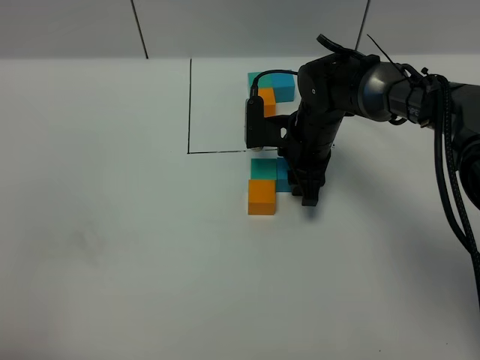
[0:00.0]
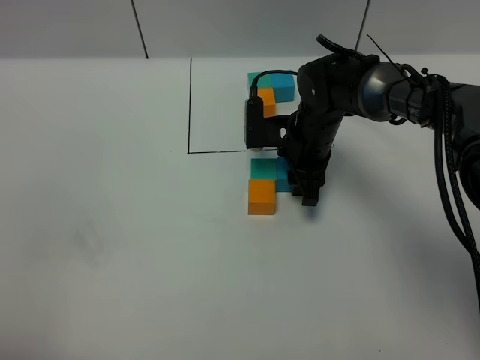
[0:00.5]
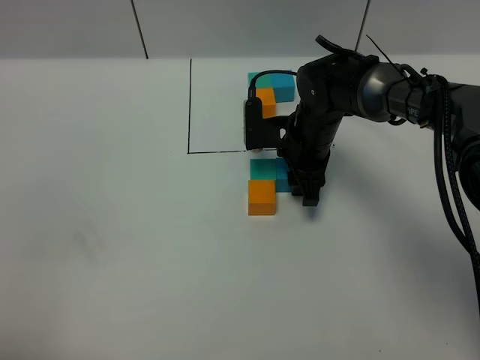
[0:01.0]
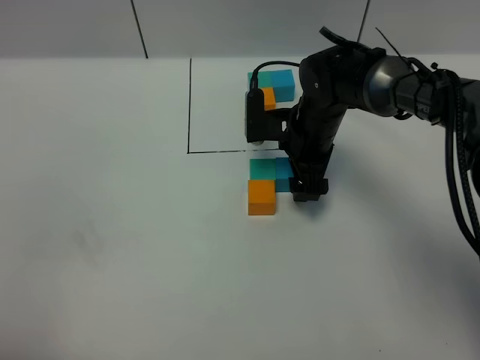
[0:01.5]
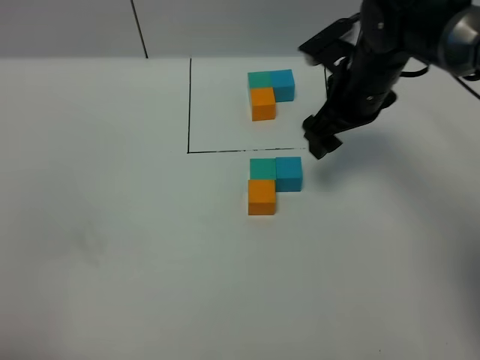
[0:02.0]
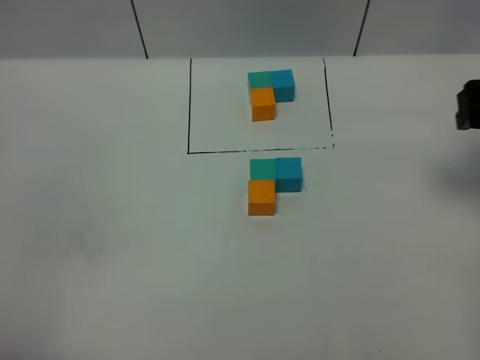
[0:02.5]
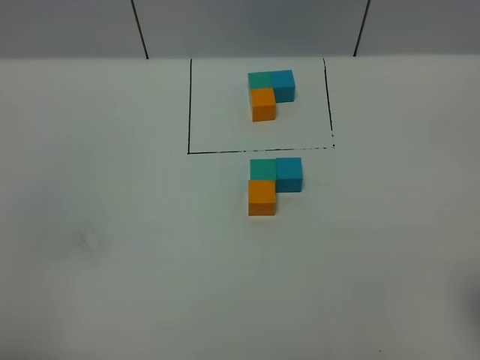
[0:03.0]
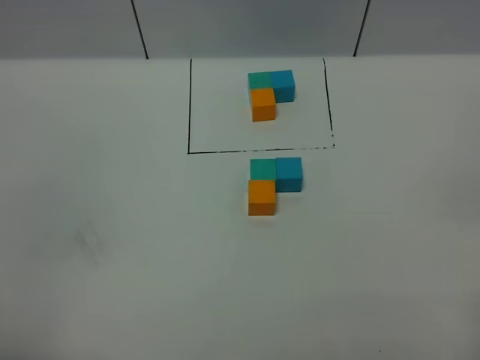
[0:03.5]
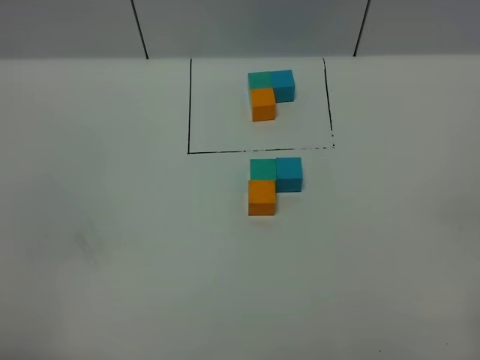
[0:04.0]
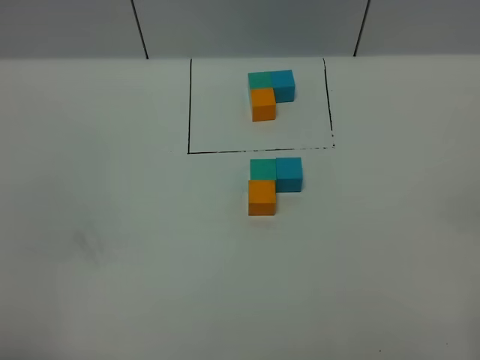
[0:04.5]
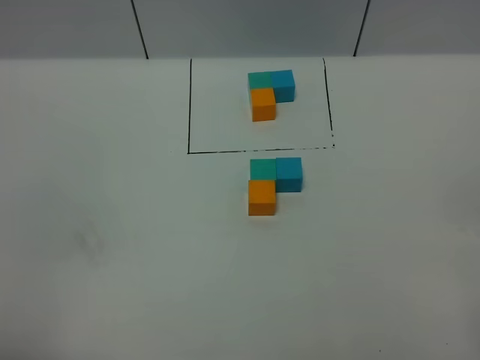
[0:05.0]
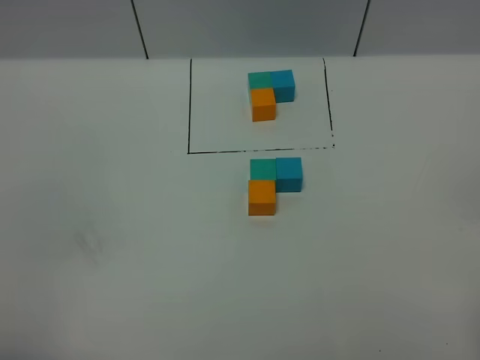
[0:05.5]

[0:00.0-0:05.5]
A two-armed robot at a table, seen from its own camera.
Task of the whole recording: According to the building block template in front, assemble the scattered blocks together.
0:00.0 to 0:02.0: The right gripper moves upward and to the right, some 10 cm, and opens.
0:02.0 to 0:03.5: The right gripper is displaced backward by about 40 cm.

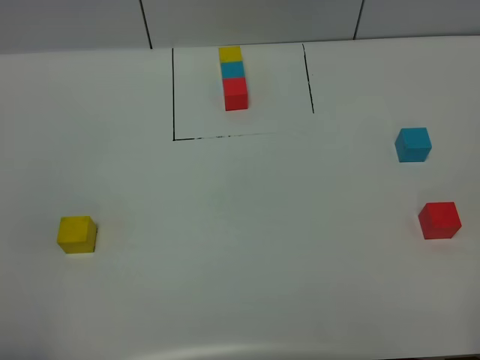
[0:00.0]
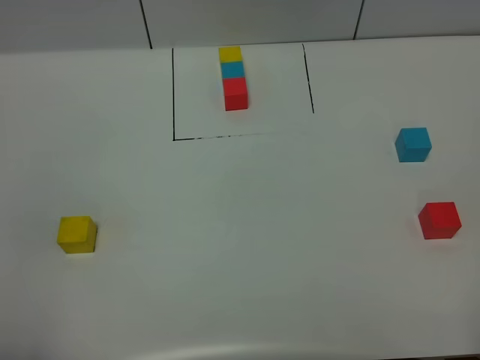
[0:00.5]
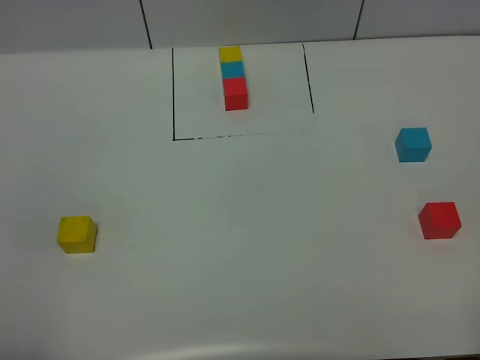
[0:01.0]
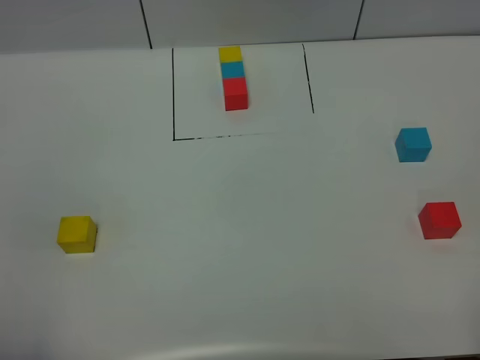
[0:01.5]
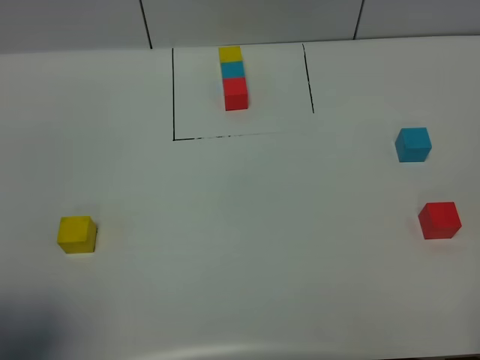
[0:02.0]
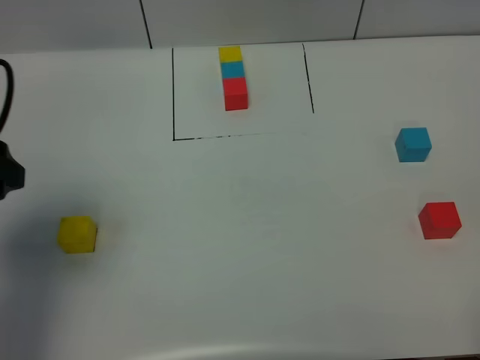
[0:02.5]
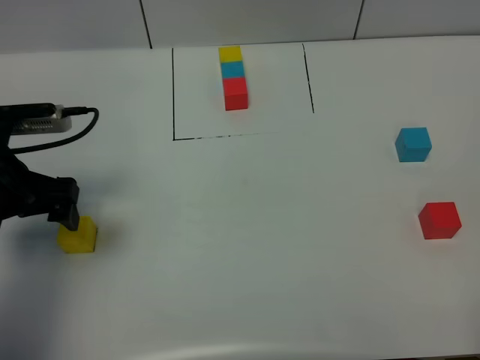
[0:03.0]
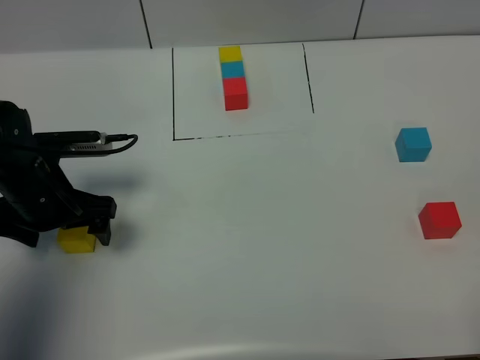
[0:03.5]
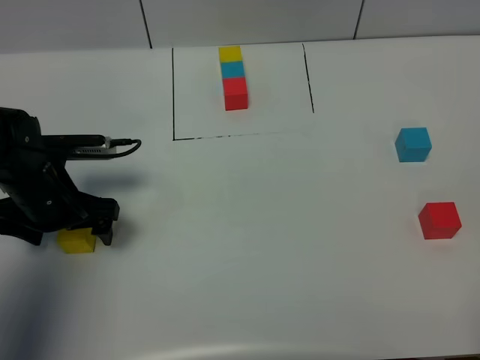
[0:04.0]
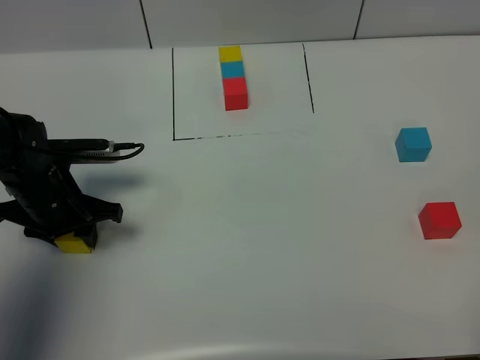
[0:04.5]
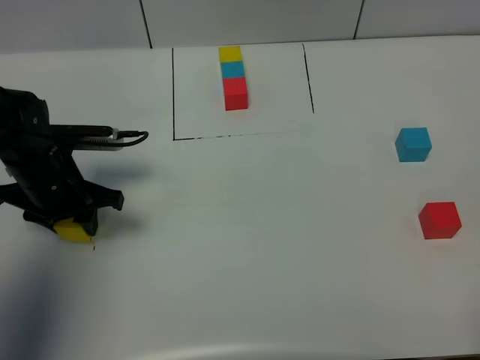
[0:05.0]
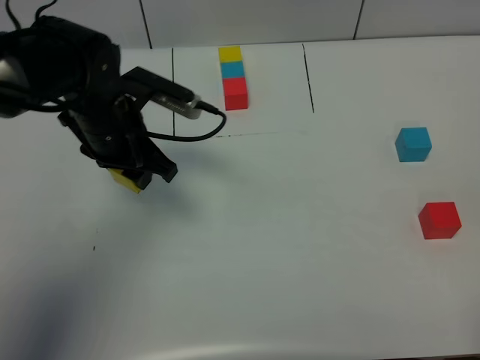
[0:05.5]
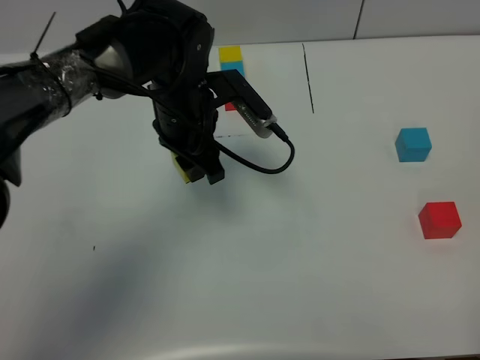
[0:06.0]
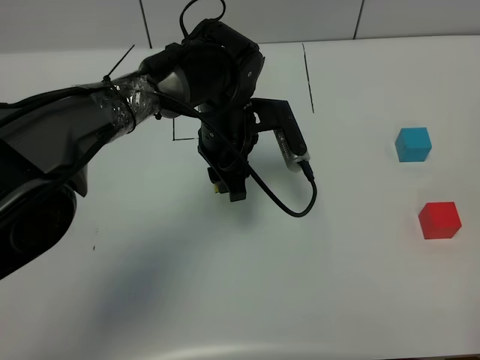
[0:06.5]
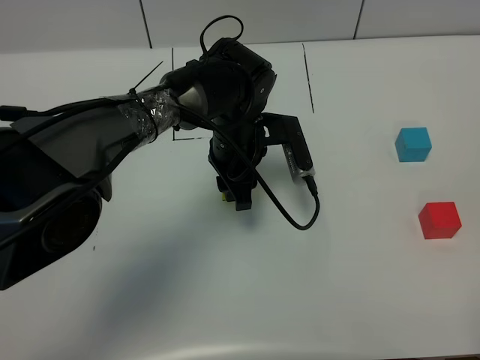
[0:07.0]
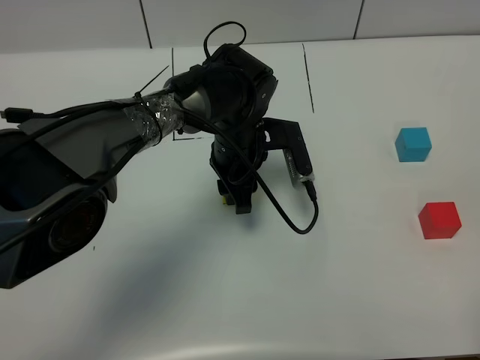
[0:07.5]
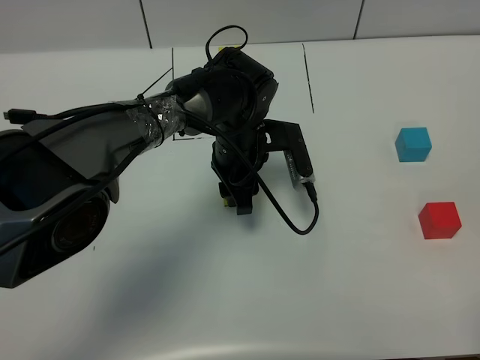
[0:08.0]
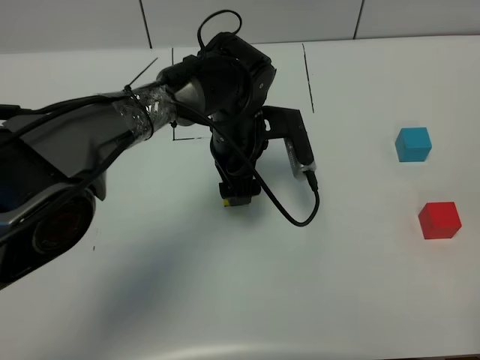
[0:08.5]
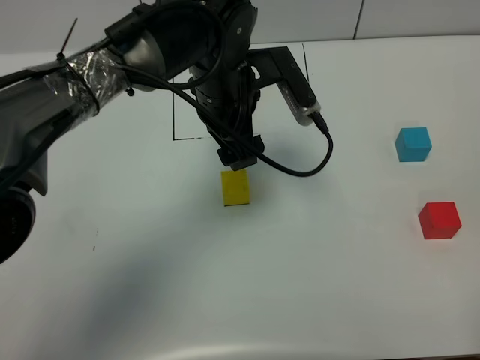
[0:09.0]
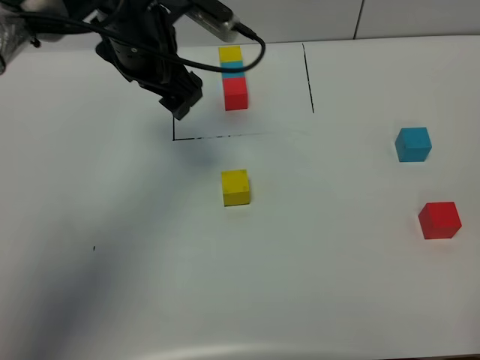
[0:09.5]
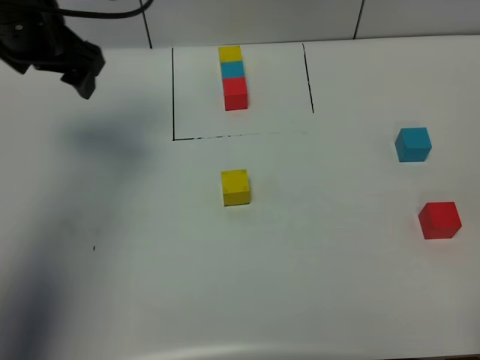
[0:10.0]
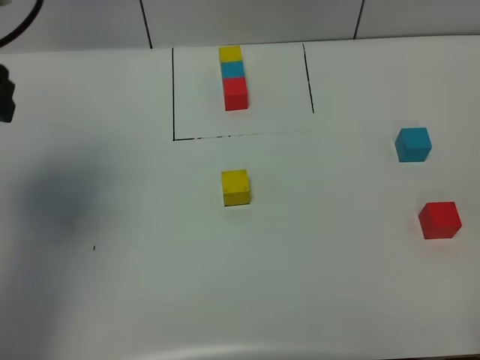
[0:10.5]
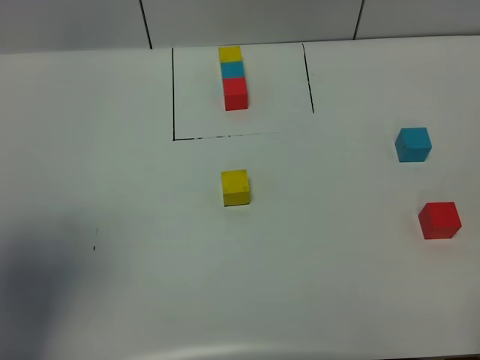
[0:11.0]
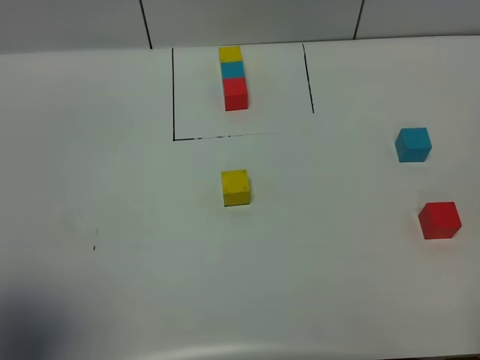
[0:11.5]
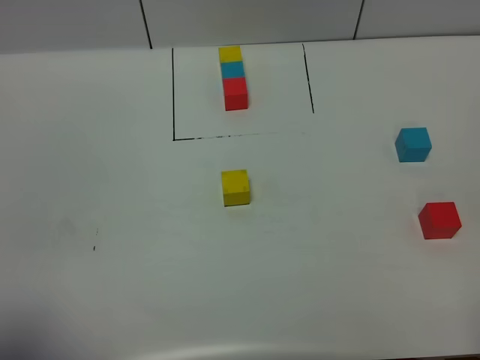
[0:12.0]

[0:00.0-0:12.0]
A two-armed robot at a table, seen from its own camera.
Task of the whole recording: According to the building block template in front, assemble the scattered blocks together.
Step, 0:00.0 to 0:09.0: Put the yellow build block in the center of the table.
0:00.0 to 0:02.0: The left gripper moves forward, approximately 10 cm, and opens.
0:02.0 to 0:04.0: The left gripper is displaced forward and downward by about 30 cm.
0:04.0 to 0:06.0: The left gripper shifts roughly 20 cm to the right, and closes.
0:06.0 to 0:08.0: The left gripper shifts approximately 10 cm downward and to the right.
0:08.0 to 0:10.0: The left gripper is displaced to the left and upward by some 30 cm, and opens.
0:10.0 to 0:12.0: The left gripper is displaced backward by about 35 cm.

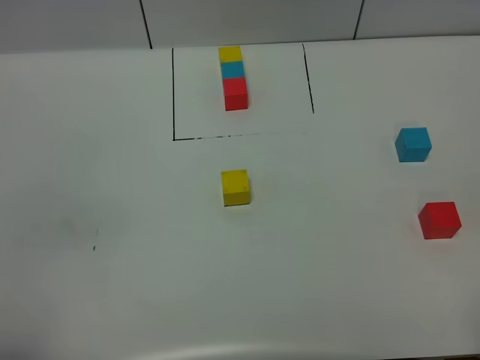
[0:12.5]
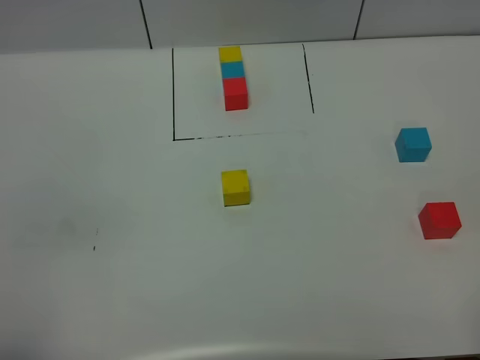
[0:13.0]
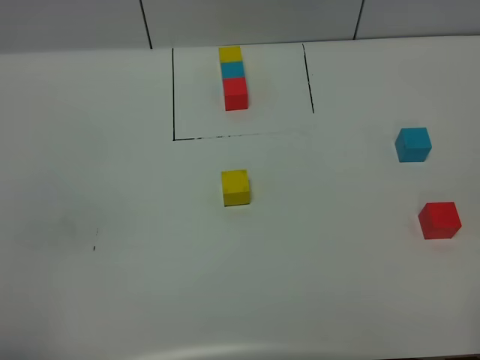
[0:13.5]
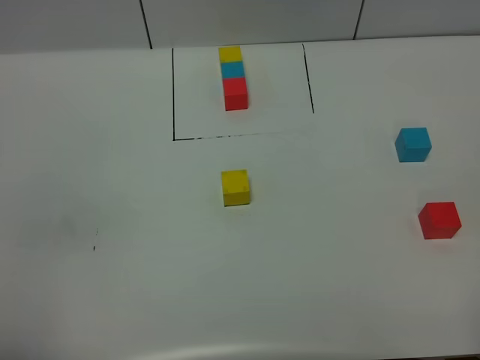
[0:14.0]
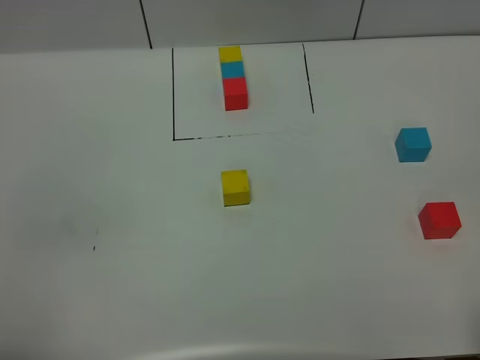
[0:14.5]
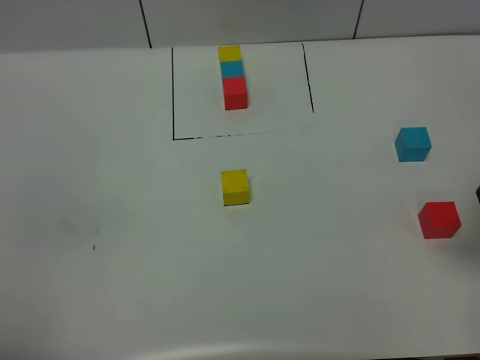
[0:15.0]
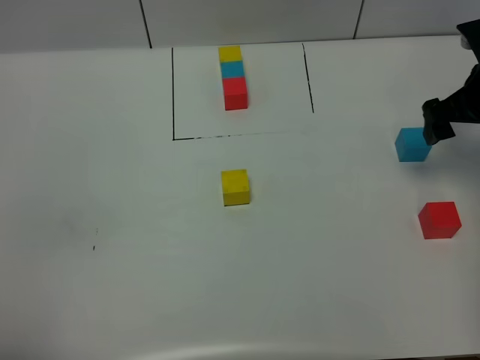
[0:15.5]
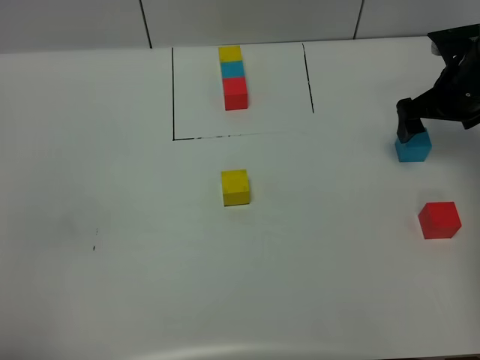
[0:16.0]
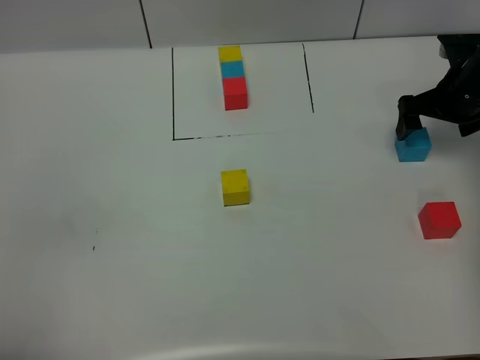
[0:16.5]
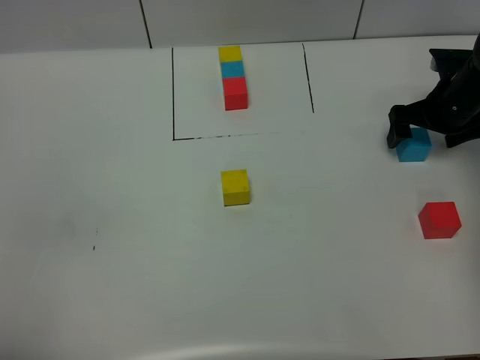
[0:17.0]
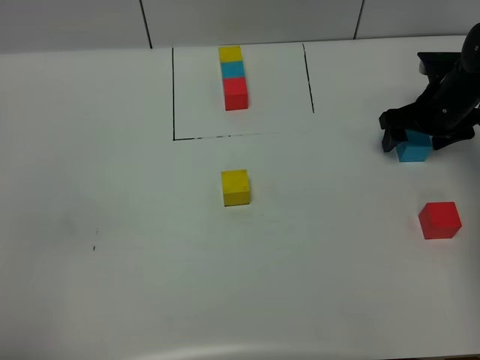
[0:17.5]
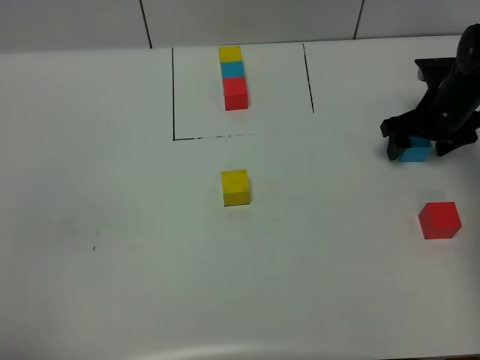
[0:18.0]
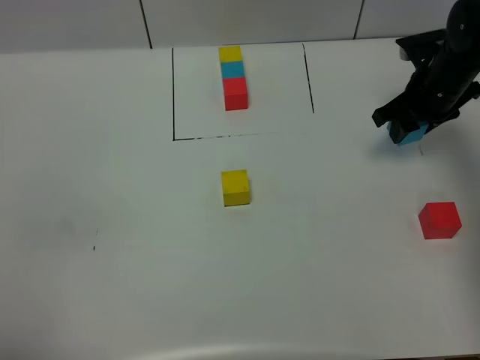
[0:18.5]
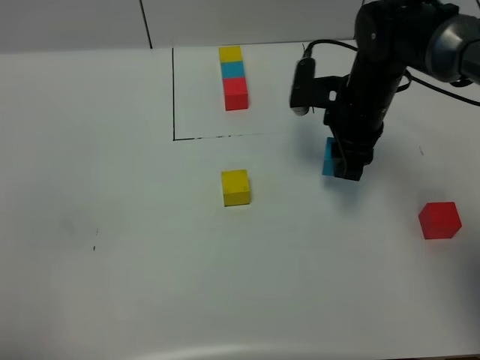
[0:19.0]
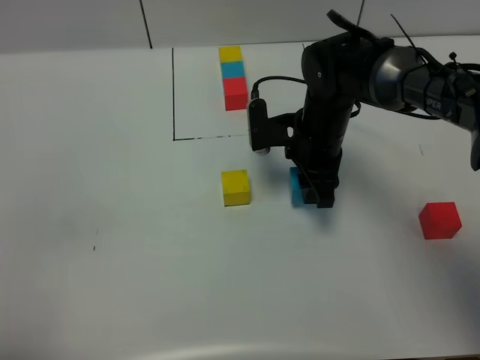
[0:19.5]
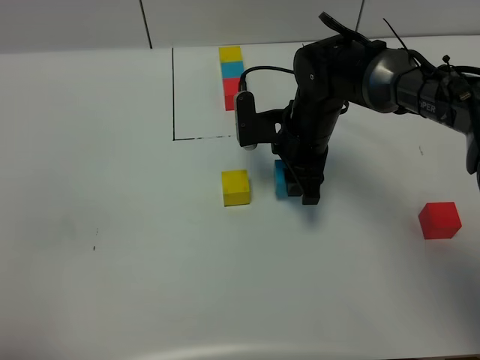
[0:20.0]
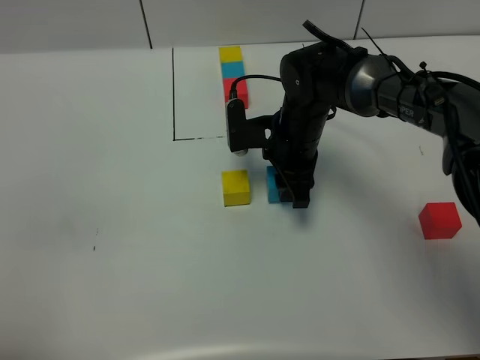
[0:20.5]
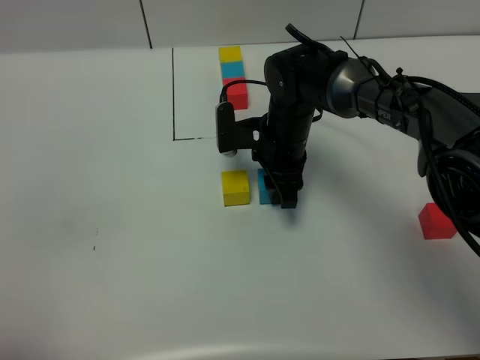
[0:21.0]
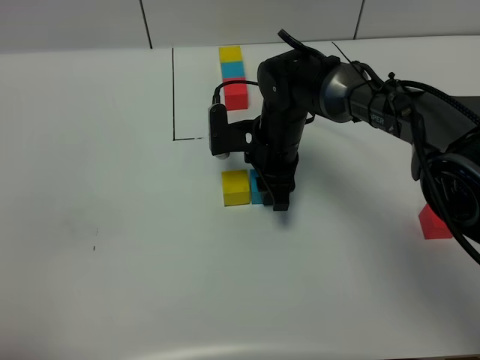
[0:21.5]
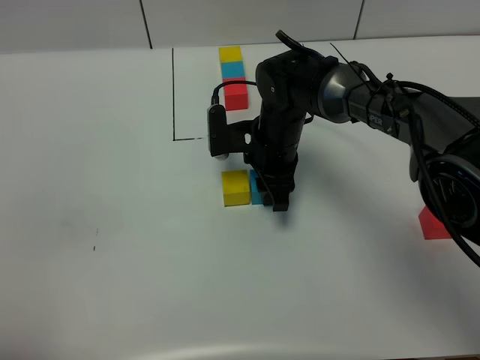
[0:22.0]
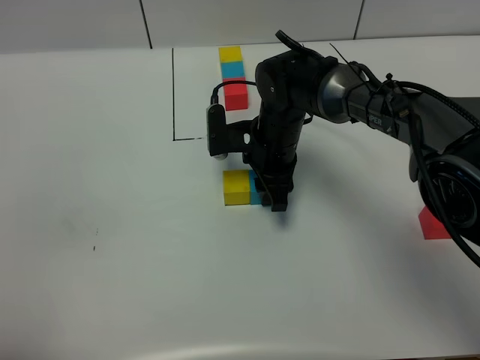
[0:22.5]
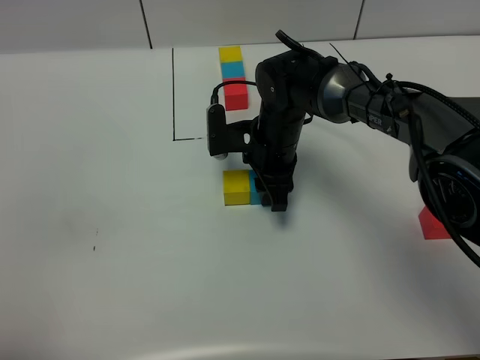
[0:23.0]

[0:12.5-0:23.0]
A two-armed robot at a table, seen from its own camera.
Task of the whole recording: According to the building block template in front, assemble the scattered blocks together.
0:14.5 to 0:16.5: The right gripper is displaced forward by approximately 40 cm.
0:16.5 to 0:19.0: The right gripper shifts some 15 cm to the left, and closes its fingers.
0:19.0 to 0:21.0: The right gripper moves to the left and downward, roughly 10 cm.
0:21.0 to 0:23.0: The grippers stay close to where they were, moving slightly.
